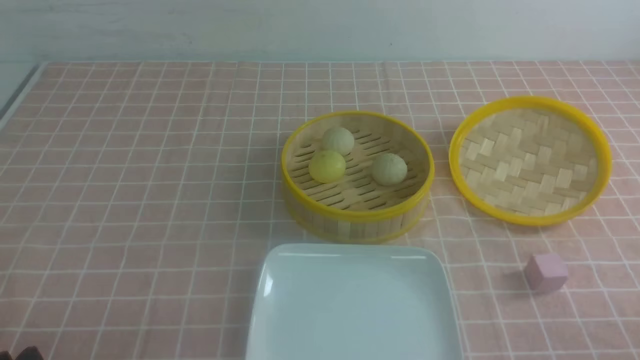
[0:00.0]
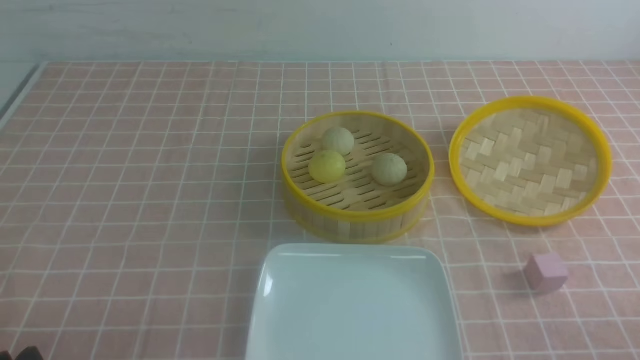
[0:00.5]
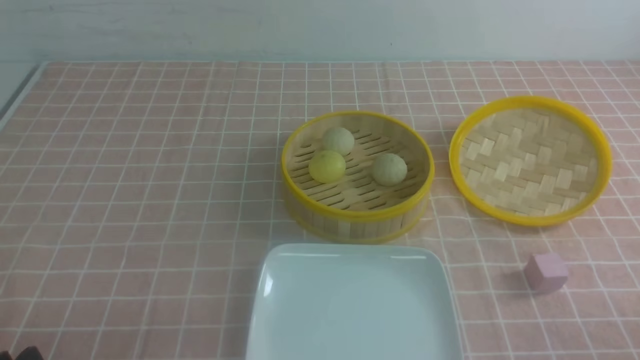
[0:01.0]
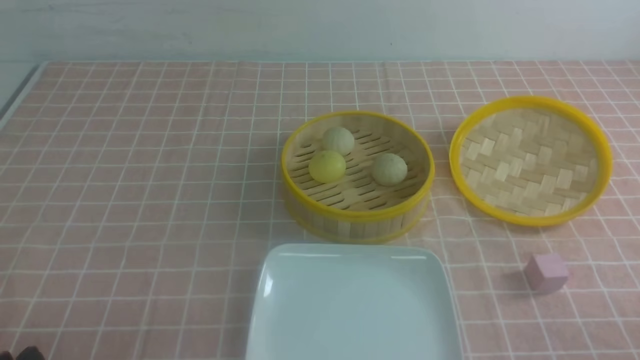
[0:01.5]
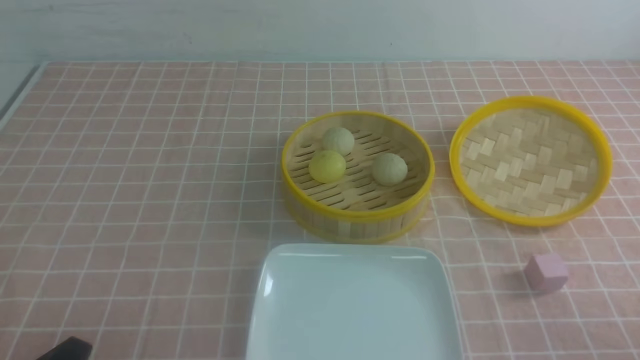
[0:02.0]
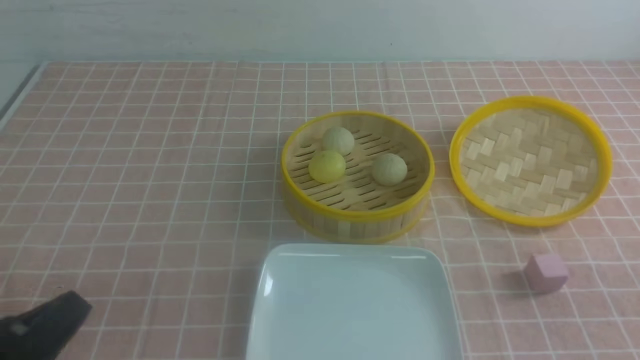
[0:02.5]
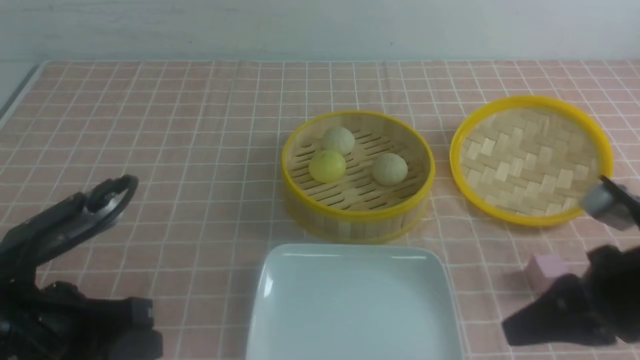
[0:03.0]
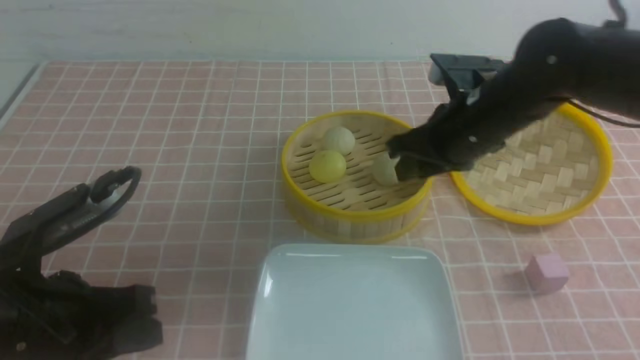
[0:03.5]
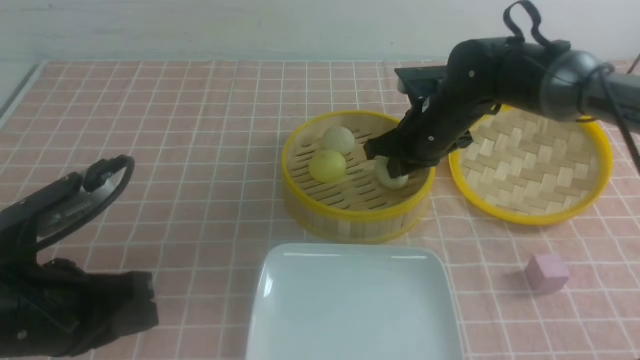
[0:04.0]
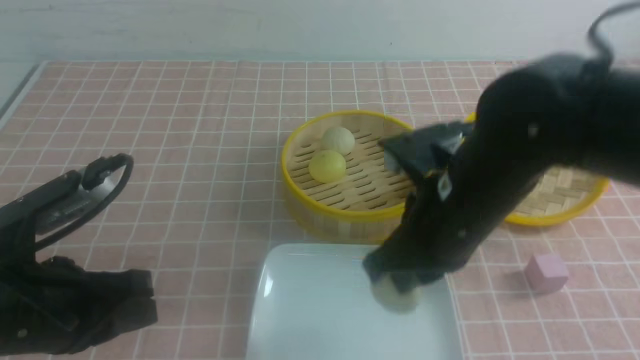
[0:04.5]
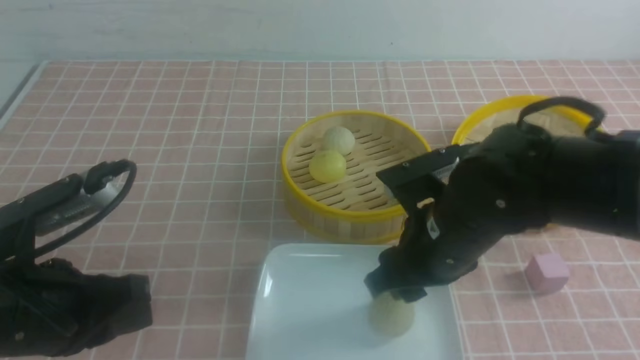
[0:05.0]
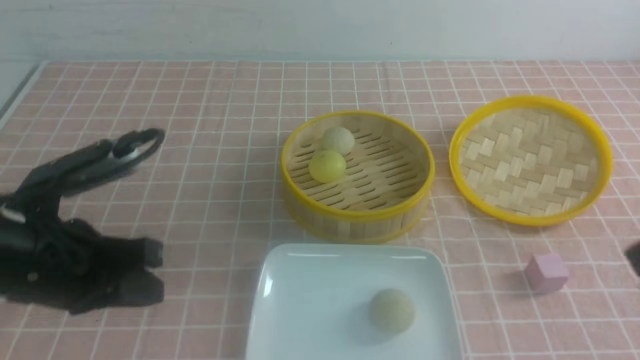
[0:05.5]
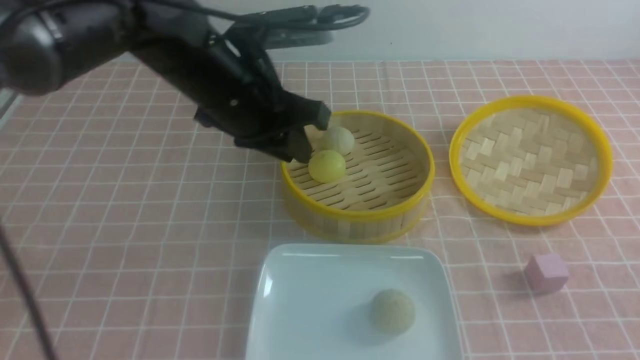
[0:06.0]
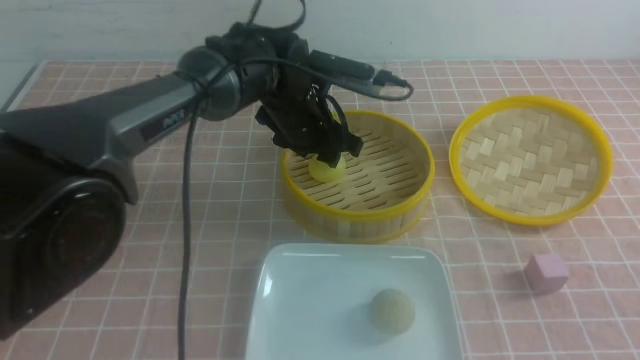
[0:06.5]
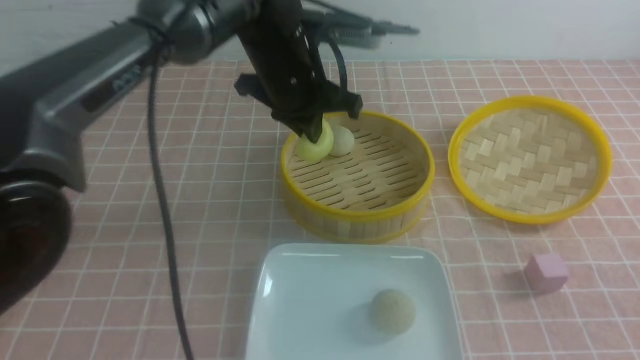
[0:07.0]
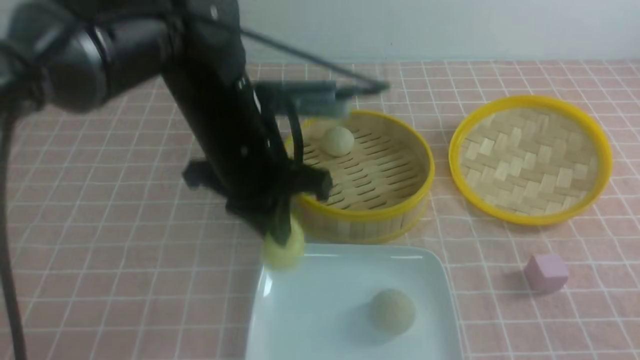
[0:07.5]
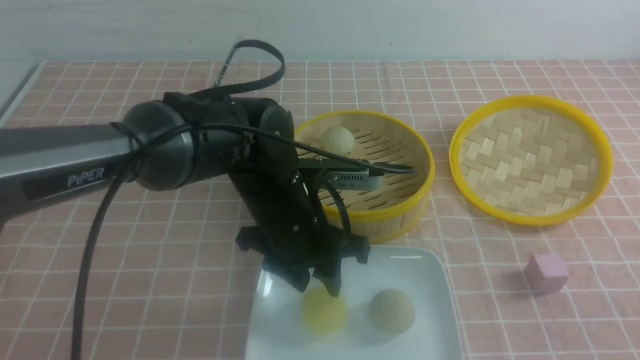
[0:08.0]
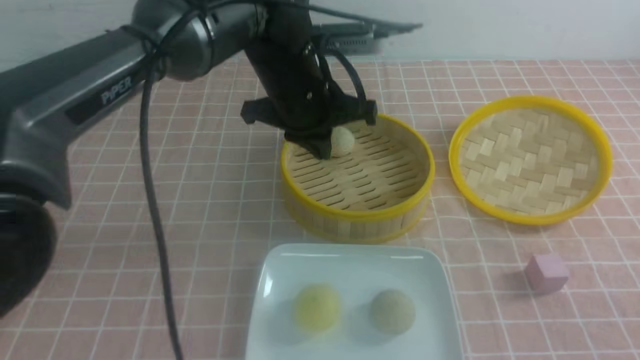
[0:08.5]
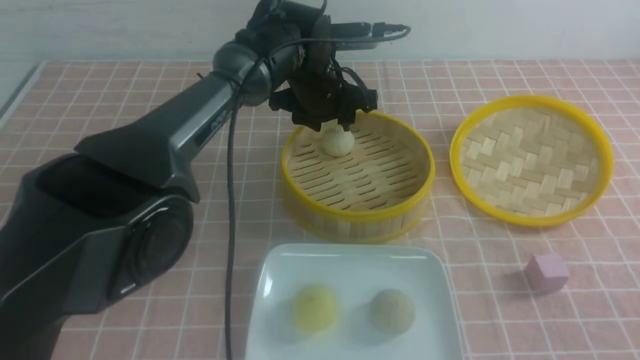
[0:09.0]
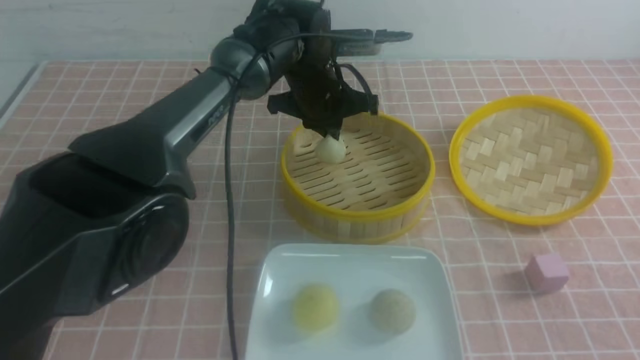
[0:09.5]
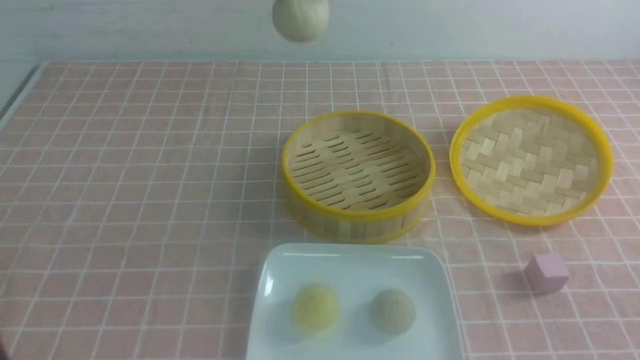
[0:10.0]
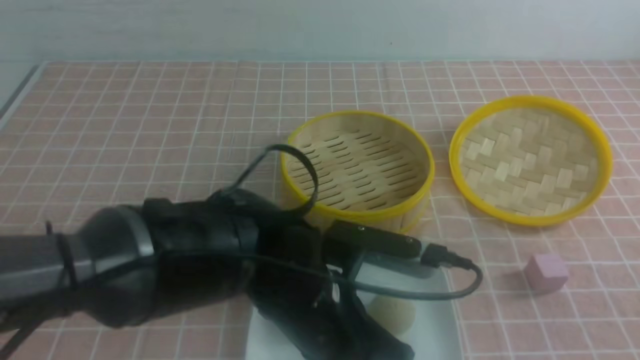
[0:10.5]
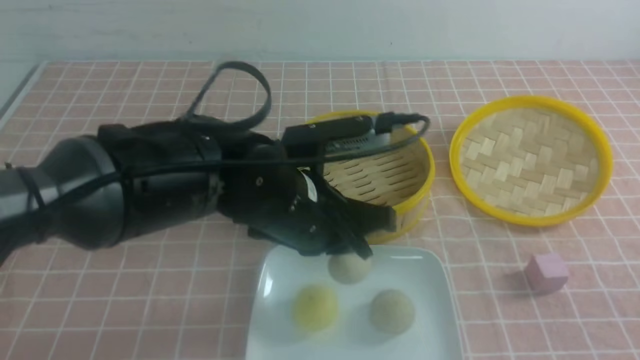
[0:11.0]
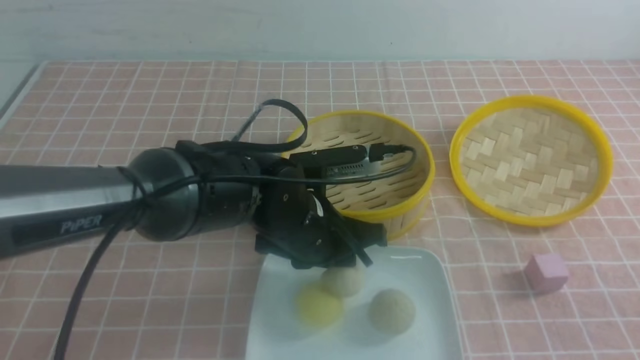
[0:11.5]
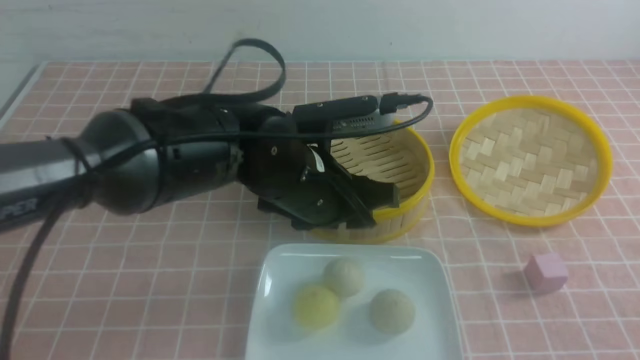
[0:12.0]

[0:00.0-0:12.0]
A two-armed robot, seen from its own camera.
Step, 0:00.0 to 0:03.5: use the right arm to grab the steamed stuffed bun that is closest to it.
Step, 0:05.5 to 0:06.5: use the left arm to grab the steamed stuffed bun that is closest to it.
Step, 0:07.0 to 0:08.0: use the left arm to put the steamed stuffed bun into the plate.
Step, 0:08.5 to 0:09.0: use the left arm to grab the steamed stuffed bun that is closest to it.
Step, 0:09.5 to 0:11.5: use the left arm to put the steamed stuffed bun into the plate.
0:02.0 to 0:04.0: The left gripper moves forward and upward, about 15 cm, and closes up, while the right gripper travels forward and to the left by approximately 40 cm, and closes.
0:04.0 to 0:06.0: The left gripper heads forward and to the right, covering approximately 25 cm, and opens its fingers. The right gripper heads backward and to the right, covering some 40 cm, and opens, then closes again.
0:06.0 to 0:08.0: The left gripper heads downward and to the right, covering approximately 10 cm, and closes, then opens again.
0:08.0 to 0:10.0: The left gripper moves up and down over approximately 20 cm, changing direction 2 times, and closes.
0:10.0 to 0:12.0: The left gripper shifts approximately 15 cm downward, and opens its fingers; the right gripper moves approximately 5 cm, and closes up.

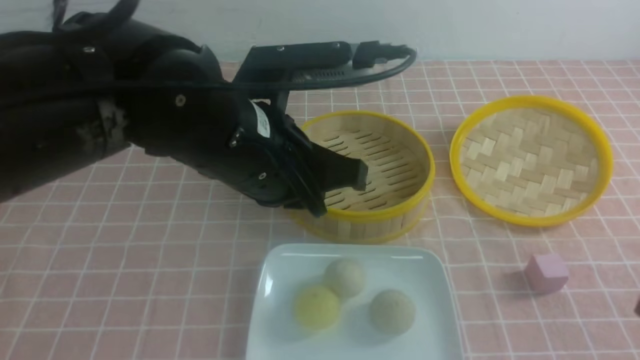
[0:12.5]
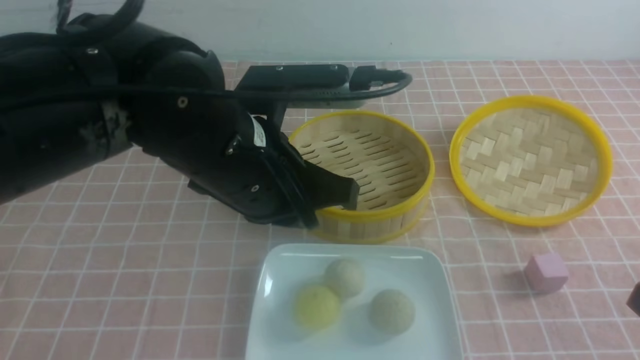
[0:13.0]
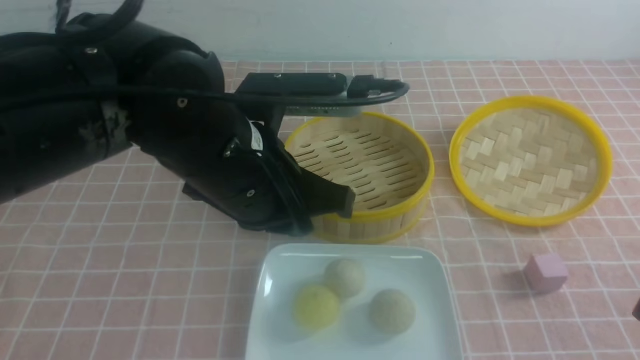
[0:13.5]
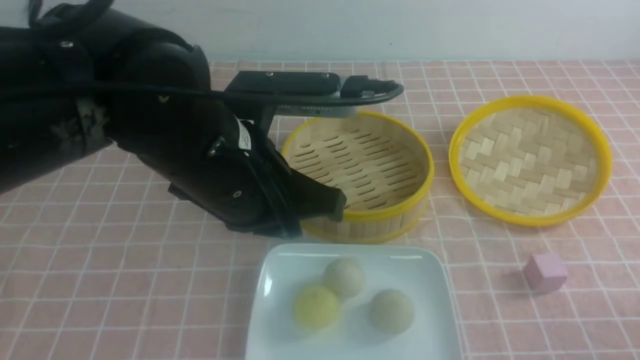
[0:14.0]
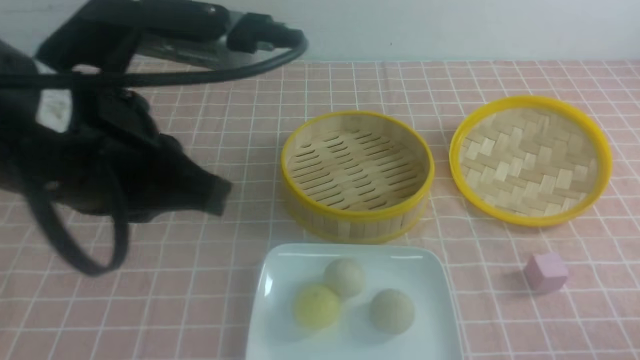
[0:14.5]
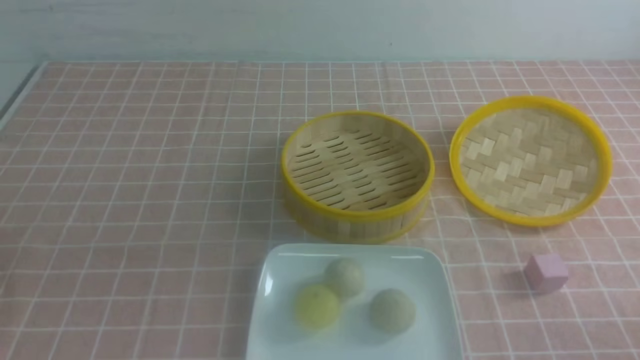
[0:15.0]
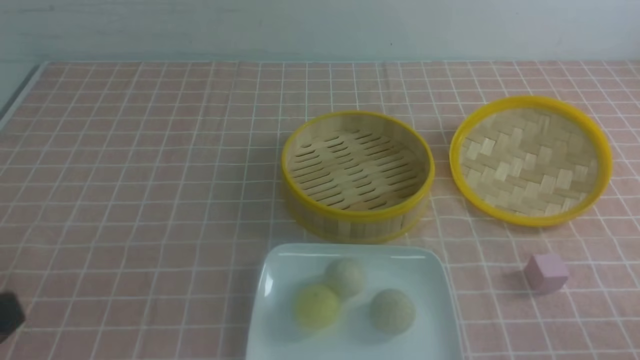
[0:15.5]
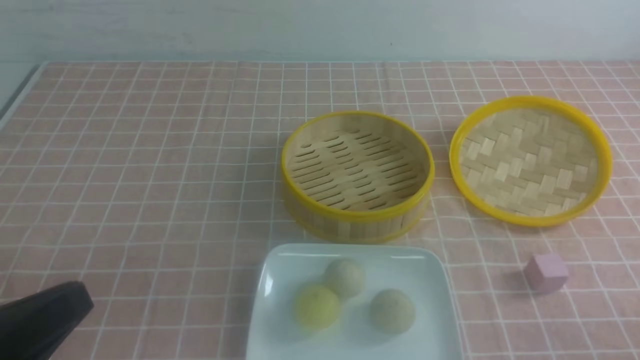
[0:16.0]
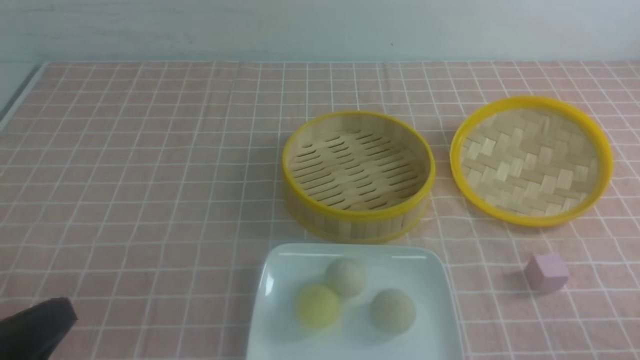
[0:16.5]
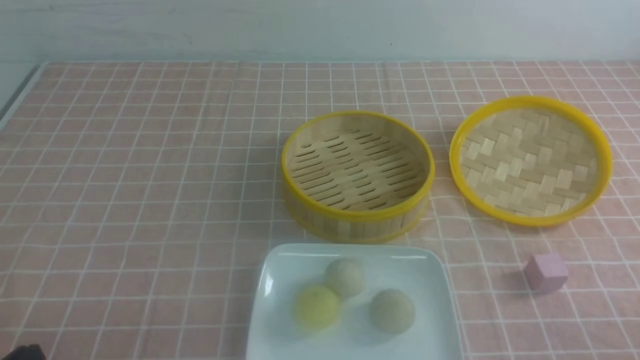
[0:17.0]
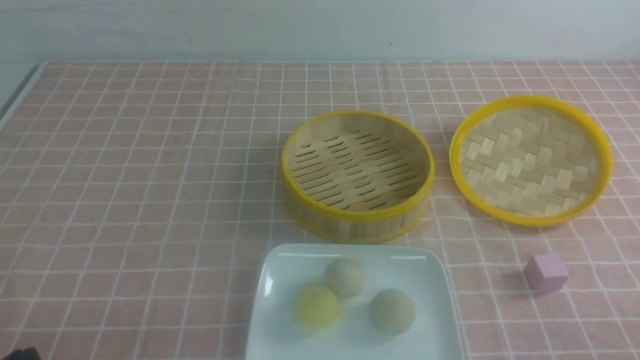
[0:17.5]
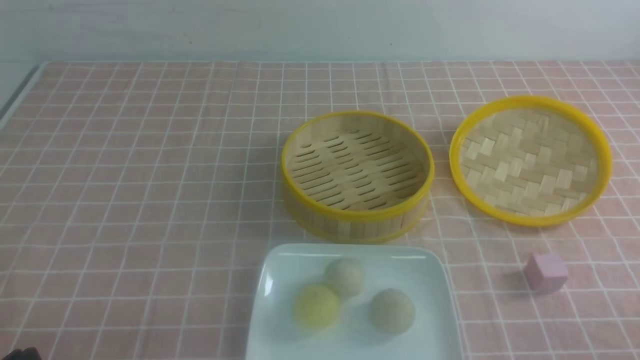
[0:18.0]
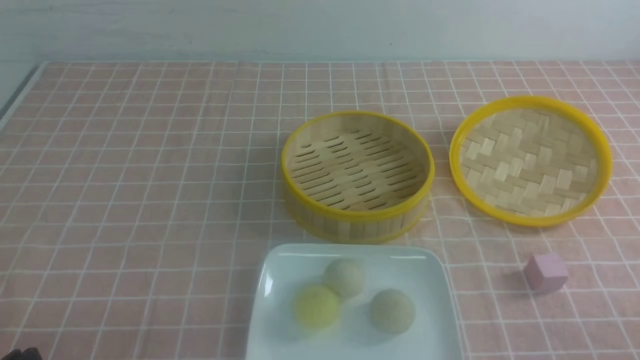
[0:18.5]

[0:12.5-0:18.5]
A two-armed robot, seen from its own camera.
0:12.5 to 0:14.5: The left gripper heads to the left, backward and upward, covering approximately 15 cm. The right gripper heads downward, covering approximately 10 cm.
0:14.5 to 0:16.5: The left gripper goes roughly 20 cm downward, backward and to the left.
0:16.5 to 0:18.5: The left gripper is displaced downward by some 10 cm.

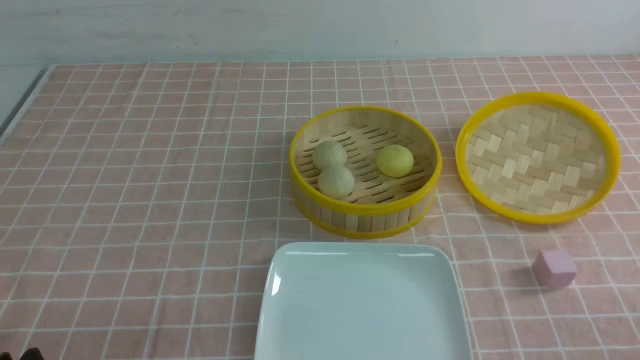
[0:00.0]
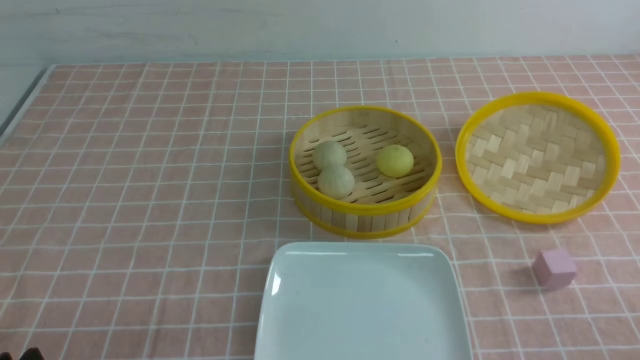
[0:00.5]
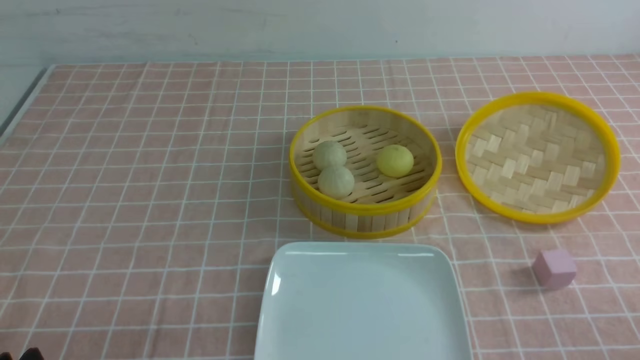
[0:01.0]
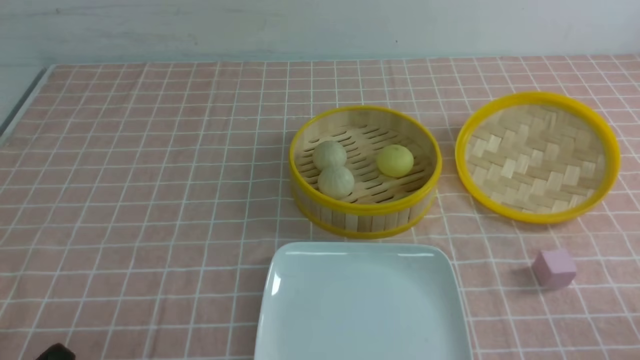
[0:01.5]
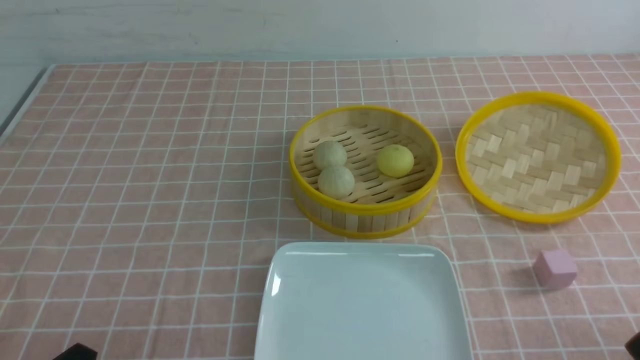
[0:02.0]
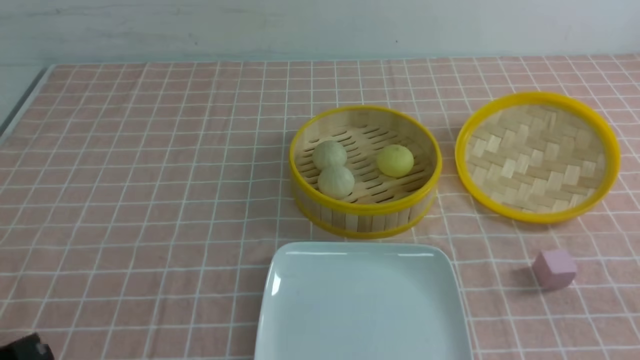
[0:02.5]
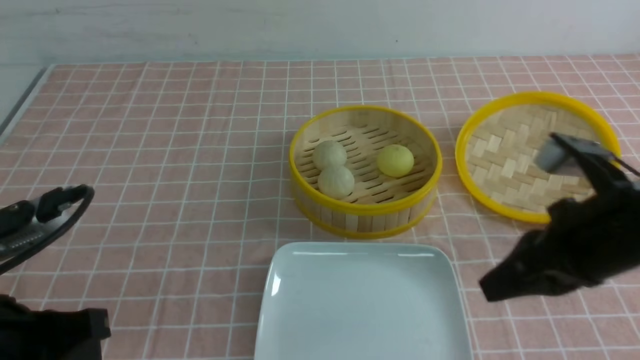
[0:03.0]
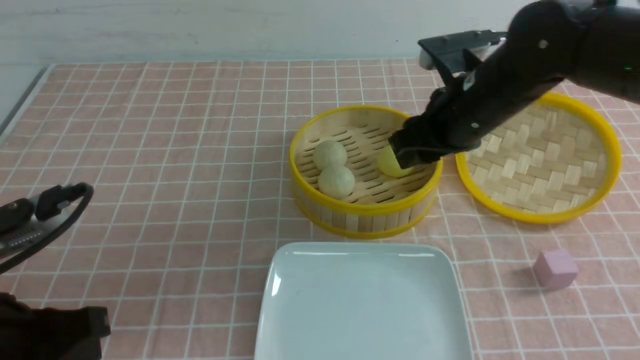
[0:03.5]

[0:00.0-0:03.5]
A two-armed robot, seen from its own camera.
0:02.0 to 0:03.5: The left gripper is displaced forward and upward by some 10 cm, and closes up; the right gripper is displaced forward and to the left by approximately 35 cm, and opens its fingers.
